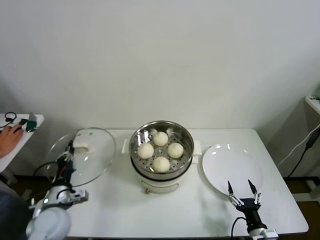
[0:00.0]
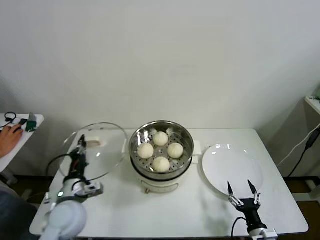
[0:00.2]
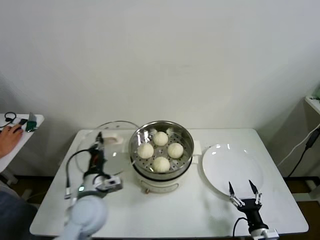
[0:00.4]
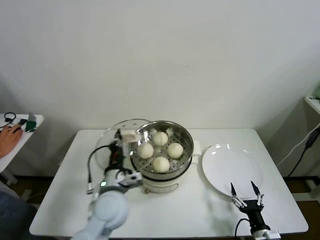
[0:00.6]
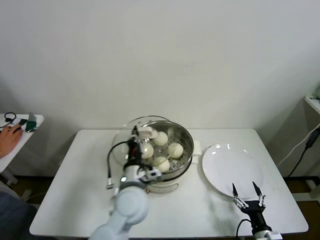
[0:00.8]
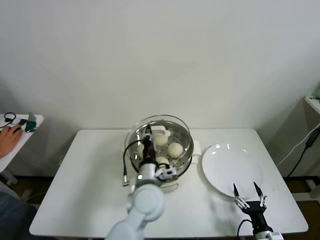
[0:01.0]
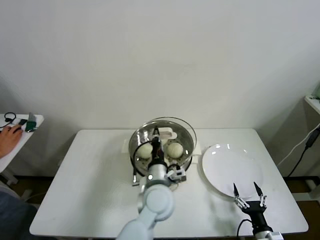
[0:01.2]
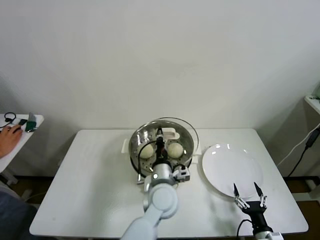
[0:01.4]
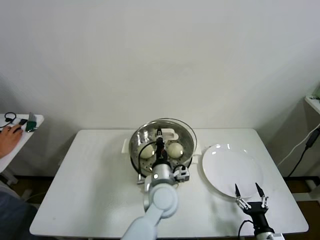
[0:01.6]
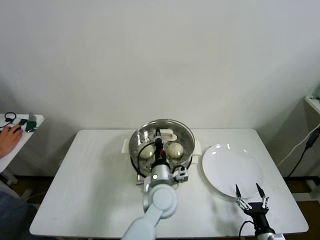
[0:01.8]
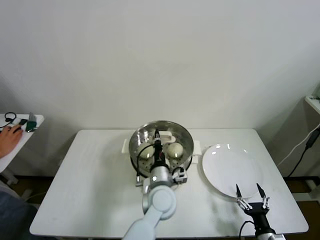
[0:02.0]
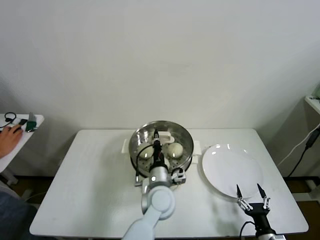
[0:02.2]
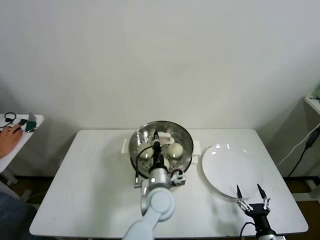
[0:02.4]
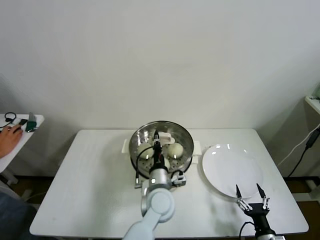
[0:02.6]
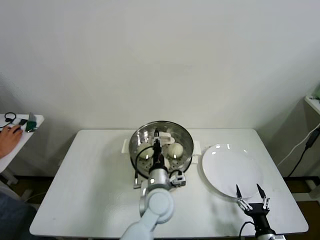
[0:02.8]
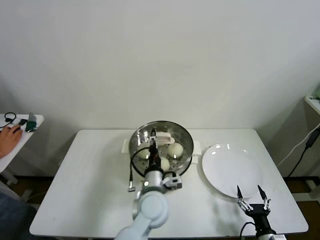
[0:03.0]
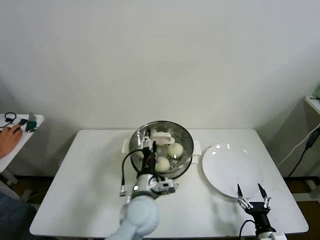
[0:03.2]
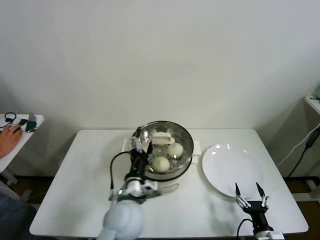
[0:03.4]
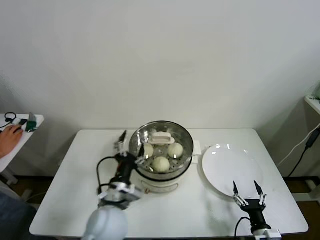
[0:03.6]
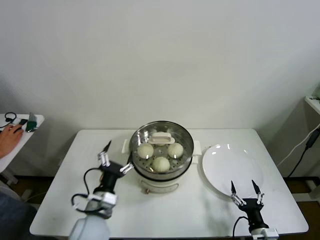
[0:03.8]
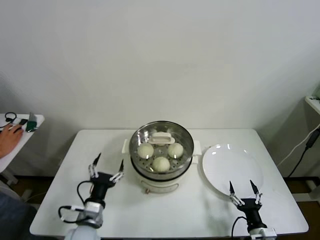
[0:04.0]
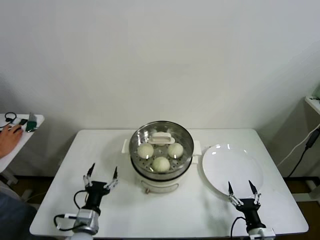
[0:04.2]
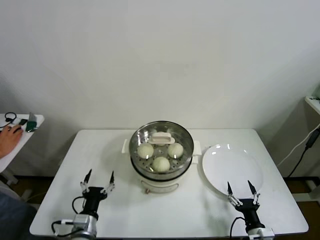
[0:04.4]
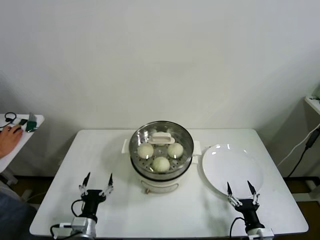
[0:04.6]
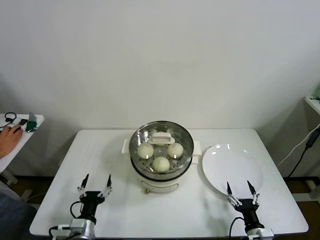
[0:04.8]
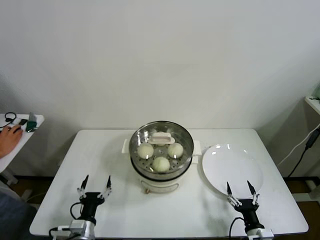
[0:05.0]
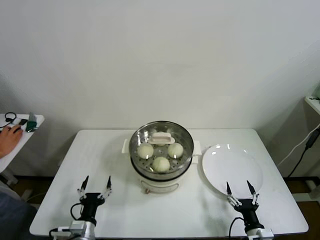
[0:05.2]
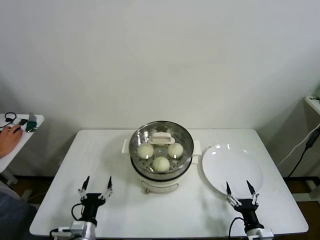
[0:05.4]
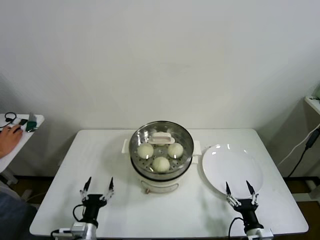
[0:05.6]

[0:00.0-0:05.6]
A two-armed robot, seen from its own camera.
Step, 0:00.0 to 0:02.6: Place the pot lid on the steamer with left gripper.
0:00.0 to 0:01.4: The left gripper is displaced to the right by some 35 cm.
0:01.4 to 0:02.8: The grippers make only small movements.
0:02.8 to 0:04.2: The left gripper heads to the left and backward, covering about 25 cm, and opens up.
0:04.2 to 0:05.6: The left gripper changes place by about 5 cm.

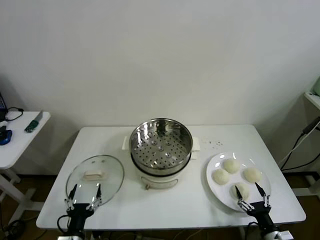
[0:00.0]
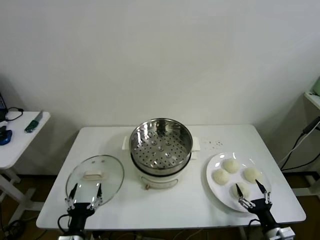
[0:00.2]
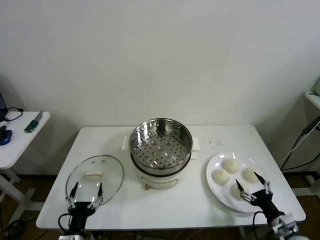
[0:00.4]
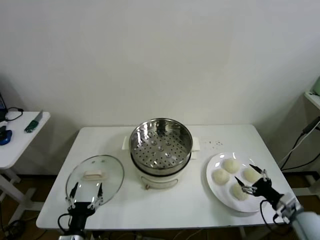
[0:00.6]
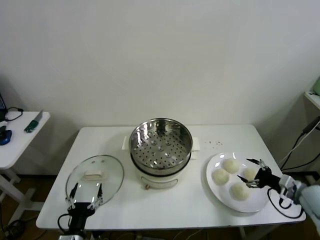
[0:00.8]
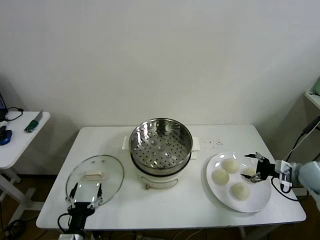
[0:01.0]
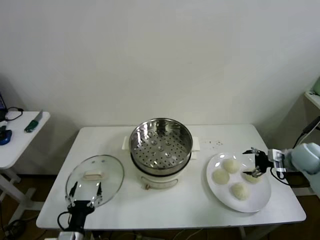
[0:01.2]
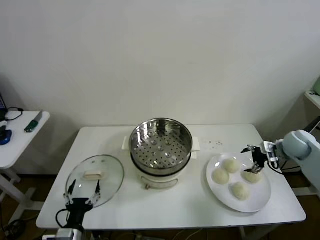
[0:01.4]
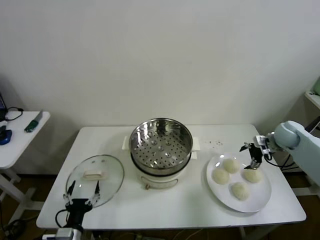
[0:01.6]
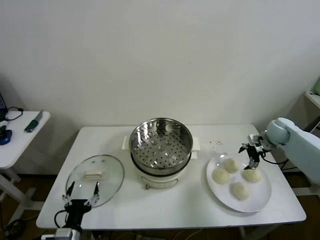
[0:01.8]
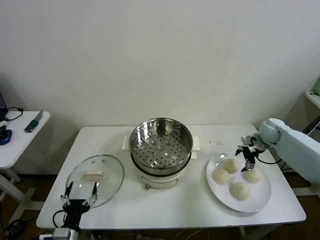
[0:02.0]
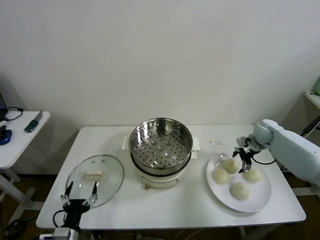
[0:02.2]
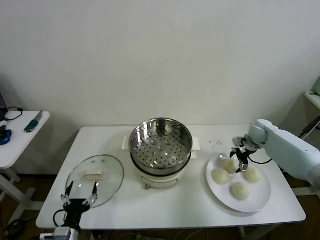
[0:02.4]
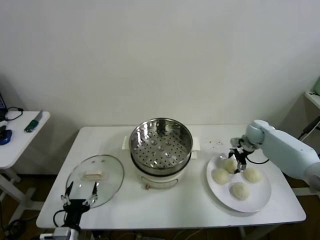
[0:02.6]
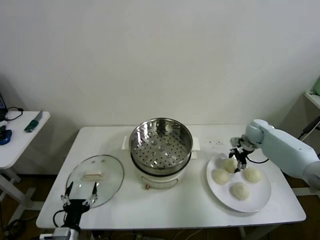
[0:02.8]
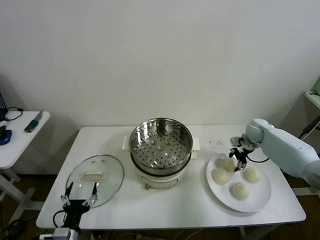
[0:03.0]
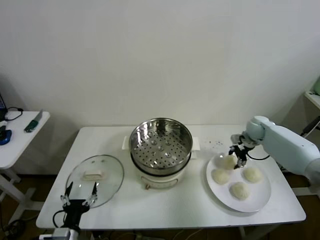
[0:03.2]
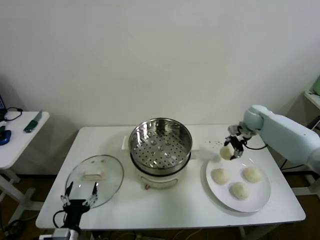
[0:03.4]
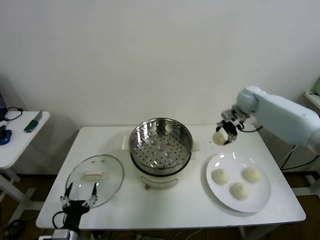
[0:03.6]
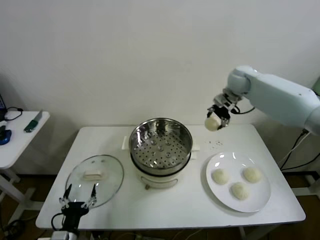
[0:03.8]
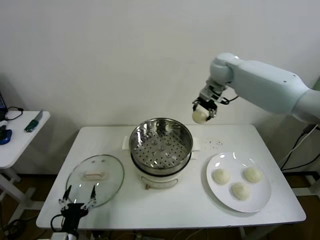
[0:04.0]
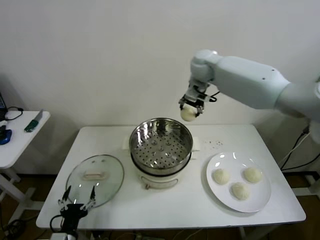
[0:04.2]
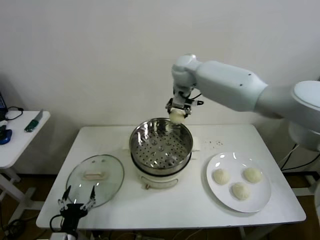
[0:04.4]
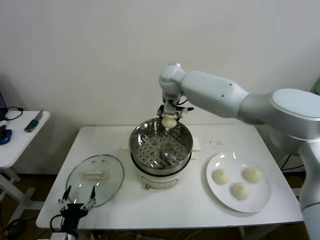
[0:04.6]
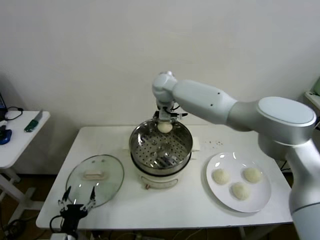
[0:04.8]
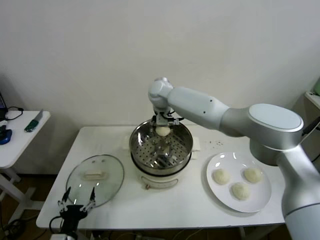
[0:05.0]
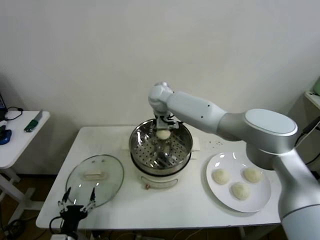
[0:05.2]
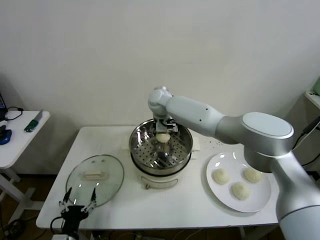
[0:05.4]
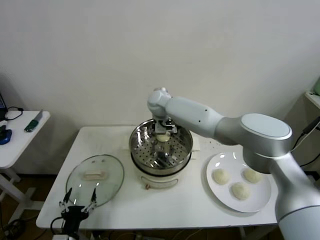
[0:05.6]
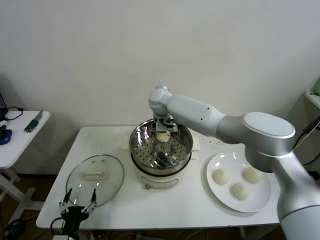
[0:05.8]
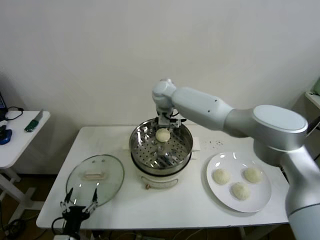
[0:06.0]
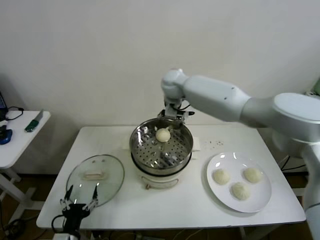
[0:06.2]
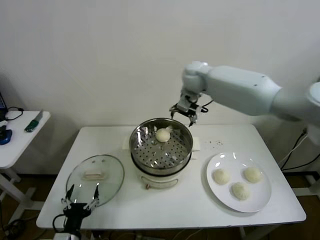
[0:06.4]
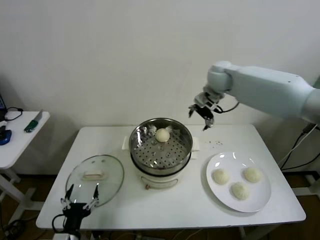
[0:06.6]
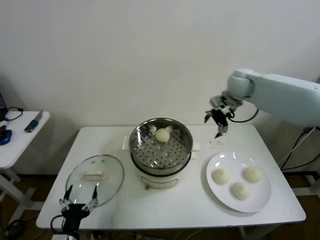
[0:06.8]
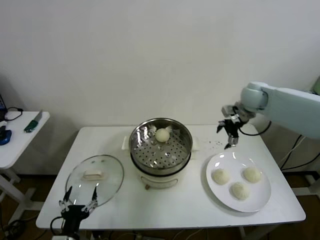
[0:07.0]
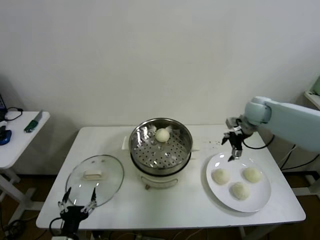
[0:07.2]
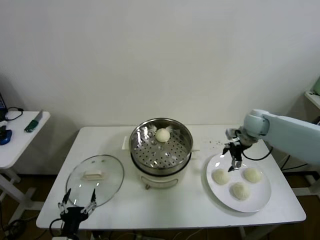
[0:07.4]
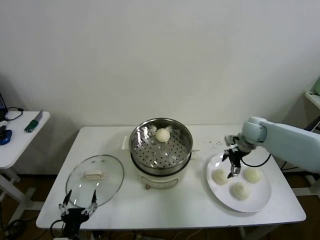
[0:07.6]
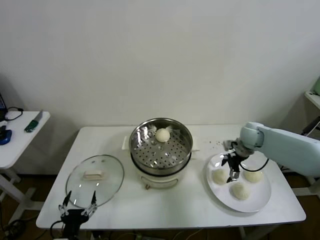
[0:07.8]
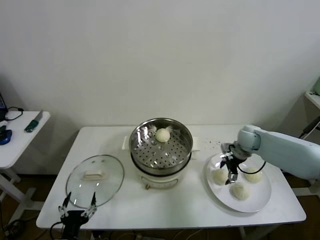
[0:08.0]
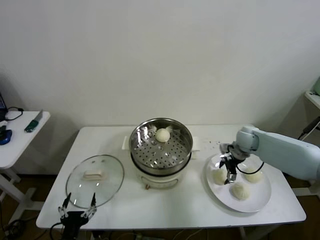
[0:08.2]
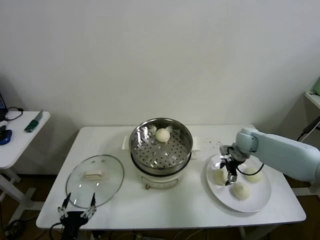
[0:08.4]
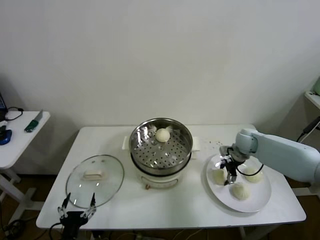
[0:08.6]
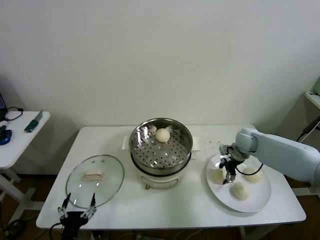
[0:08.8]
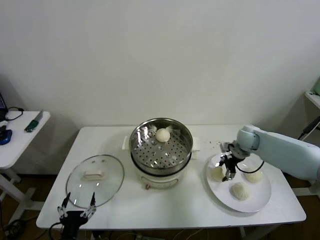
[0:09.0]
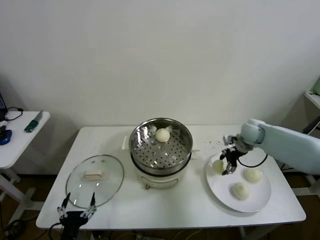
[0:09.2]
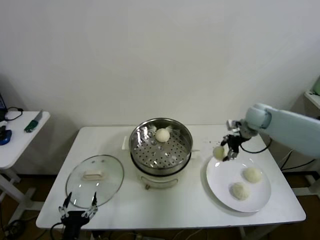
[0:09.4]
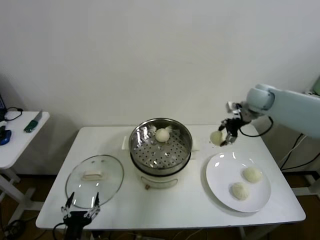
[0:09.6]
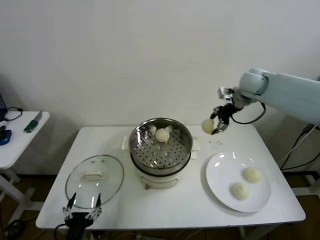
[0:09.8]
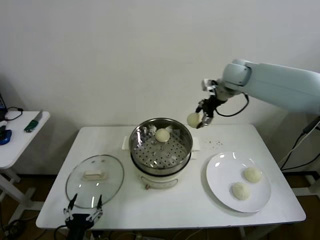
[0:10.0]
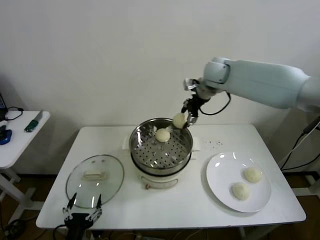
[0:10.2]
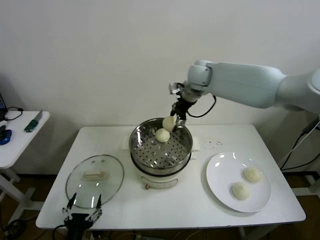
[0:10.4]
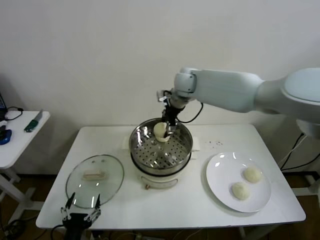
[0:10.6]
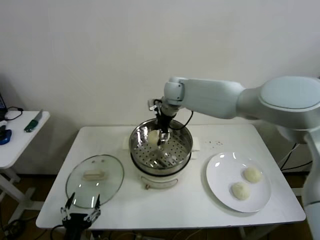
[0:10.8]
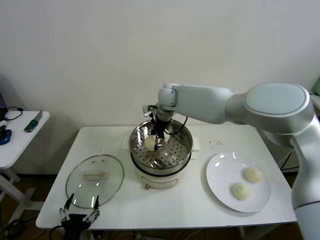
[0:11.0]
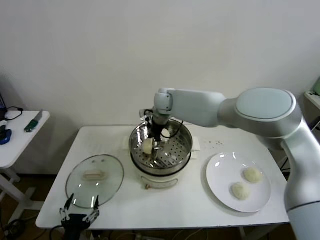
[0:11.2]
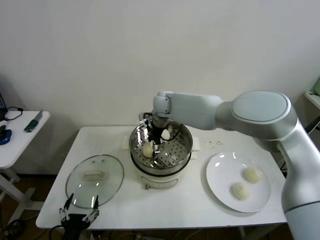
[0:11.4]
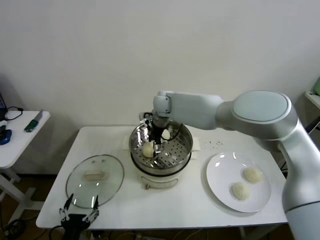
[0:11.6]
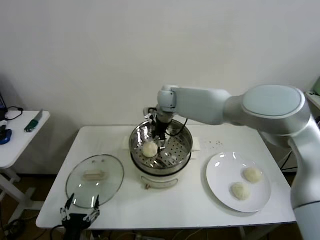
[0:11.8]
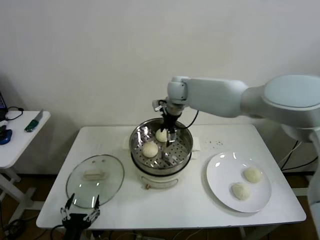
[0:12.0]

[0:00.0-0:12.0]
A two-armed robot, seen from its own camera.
Step, 0:00.0 to 0:02.8: Grasp the baozi in the plate with right gripper.
Step, 0:03.0 to 0:05.6: Place the baozi on the steamer with right gripper.
Step, 0:06.0 to 0:08.4: Grasp the baozi in the plate with right gripper.
Step, 0:08.8 to 0:11.4: Place the baozi on the steamer with right gripper.
0:01.6 to 0:03.0: The right gripper travels to the left and forward by roughly 10 cm, and closes.
0:03.0 to 0:04.4: The right gripper is displaced to the left and upward by about 40 cm.
0:04.4 to 0:06.0: The right gripper opens up.
0:06.0 to 0:07.6: The right gripper moves to the right and downward, roughly 35 cm.
0:07.6 to 0:09.0: The right gripper closes up.
0:09.0 to 0:10.4: The right gripper heads to the left and upward, covering about 30 cm.
0:10.4 to 0:12.0: The right gripper goes downward and returns, about 10 cm each way, and opens.

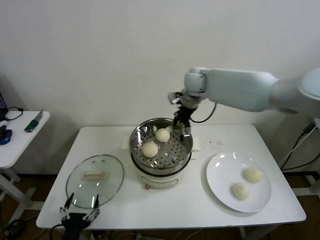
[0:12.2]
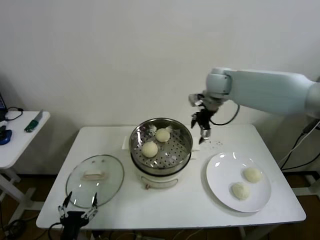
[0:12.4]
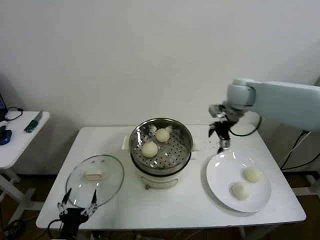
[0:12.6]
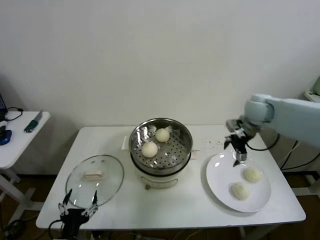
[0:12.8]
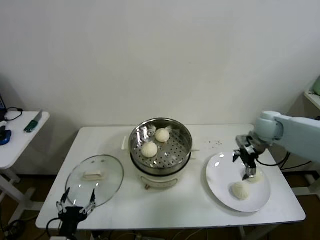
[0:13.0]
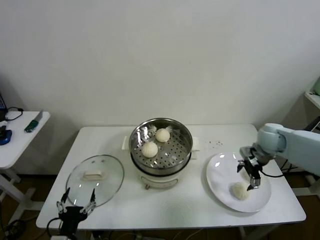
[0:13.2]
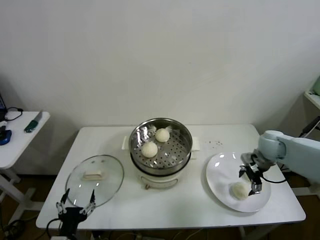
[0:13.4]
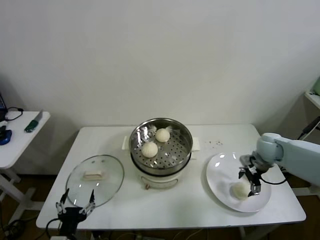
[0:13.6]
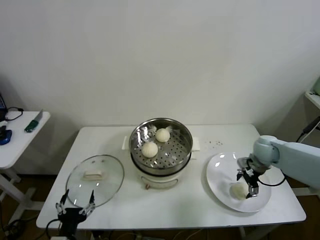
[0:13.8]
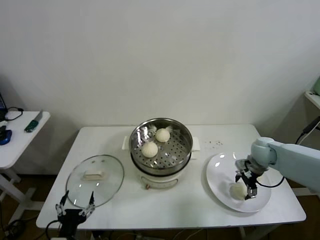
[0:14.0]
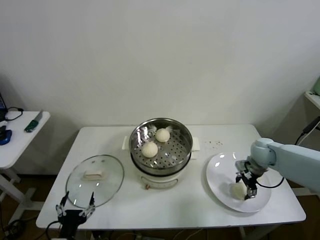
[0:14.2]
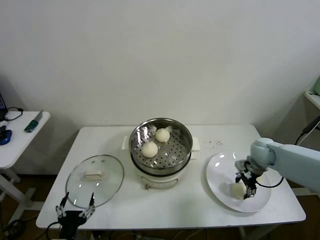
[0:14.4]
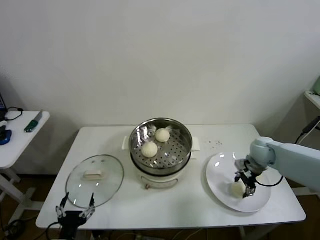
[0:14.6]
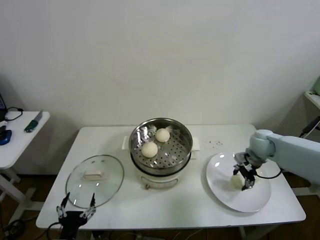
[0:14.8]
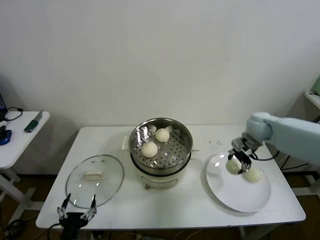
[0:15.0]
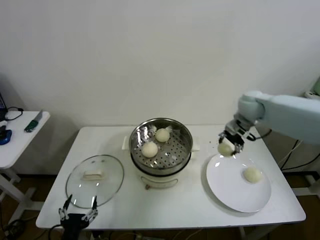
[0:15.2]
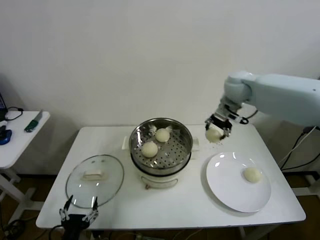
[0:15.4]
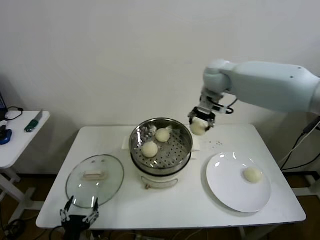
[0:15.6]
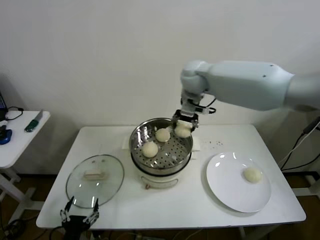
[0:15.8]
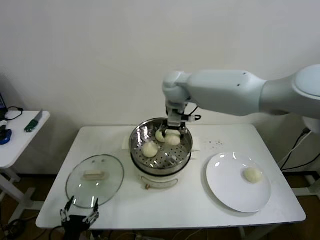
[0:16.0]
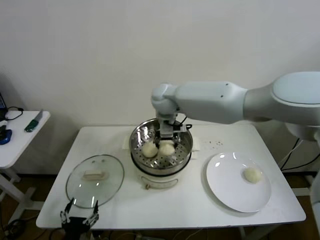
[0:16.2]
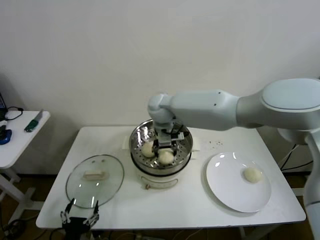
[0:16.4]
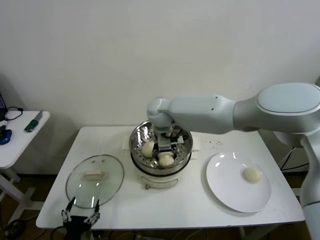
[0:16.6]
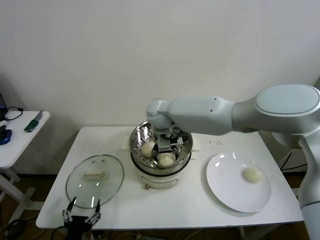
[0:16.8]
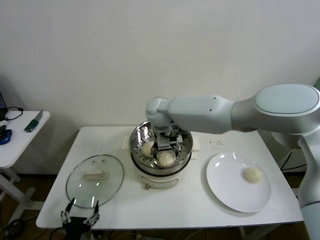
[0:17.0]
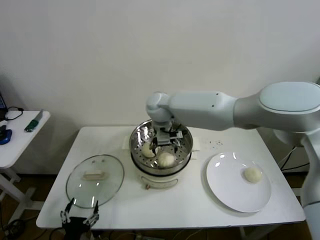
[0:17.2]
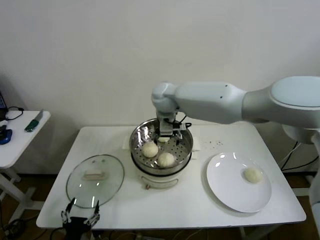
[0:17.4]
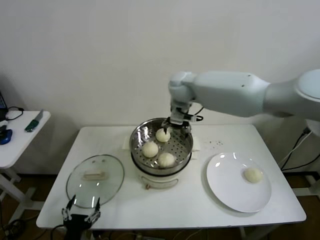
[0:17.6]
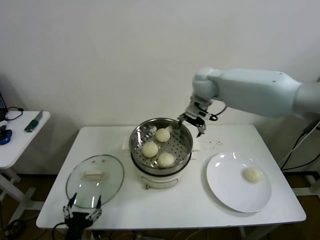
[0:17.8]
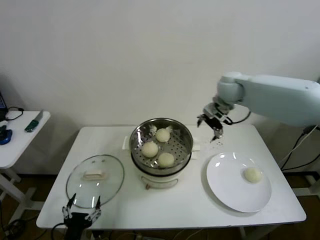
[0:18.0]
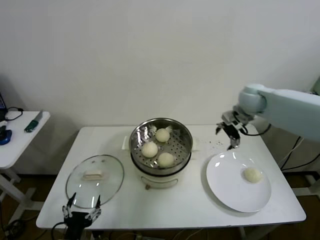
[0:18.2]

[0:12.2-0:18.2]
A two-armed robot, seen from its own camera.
Step, 0:12.2 to 0:14.4: Grasp the baozi in the plate with right gripper.
Step, 0:14.6 to 0:16.8: Place the baozi on the steamer with right gripper.
0:12.2 to 0:13.8: The right gripper is displaced to the right, downward and backward by about 35 cm.
0:13.8 to 0:15.2: The right gripper goes some 20 cm upward, to the left and forward, and closes up.
0:15.2 to 0:16.6: The right gripper moves to the left, some 30 cm.
0:16.6 to 0:18.2: The right gripper is displaced to the right by about 35 cm, and opens up.
